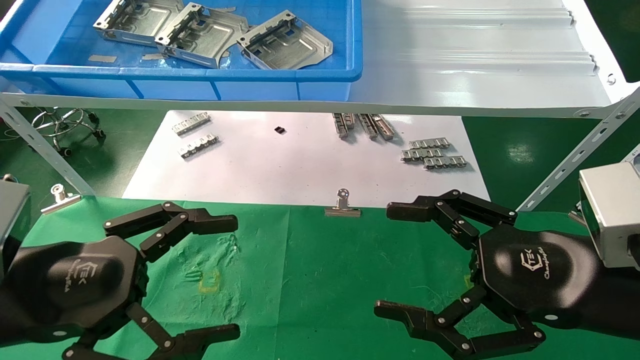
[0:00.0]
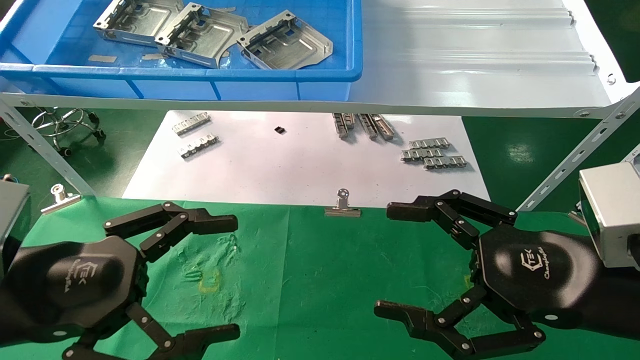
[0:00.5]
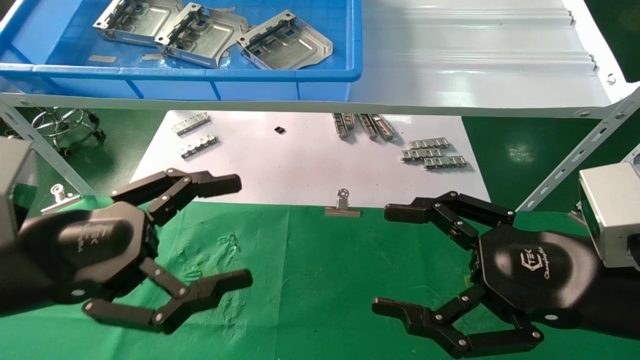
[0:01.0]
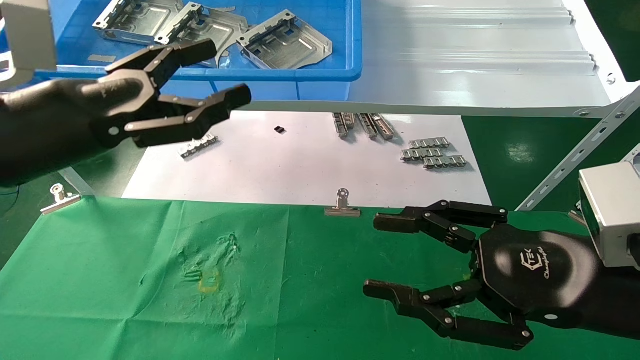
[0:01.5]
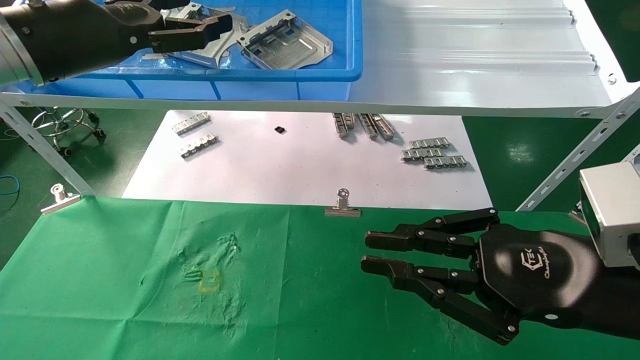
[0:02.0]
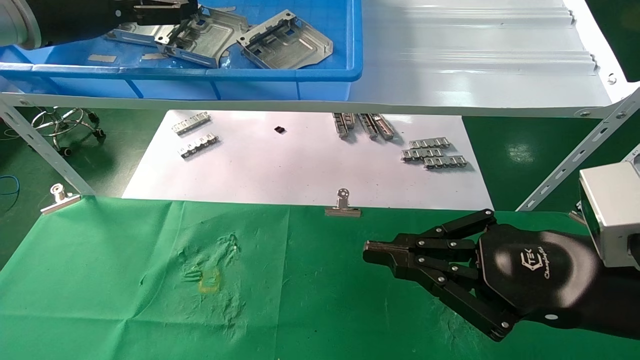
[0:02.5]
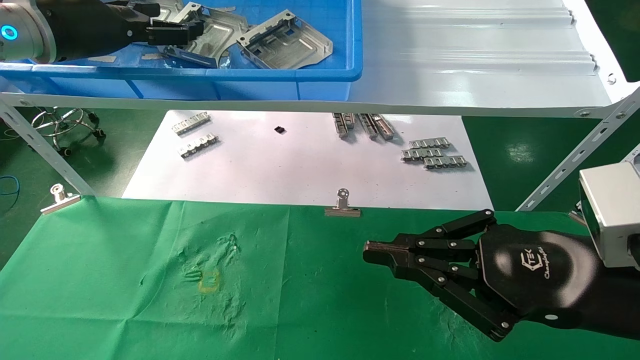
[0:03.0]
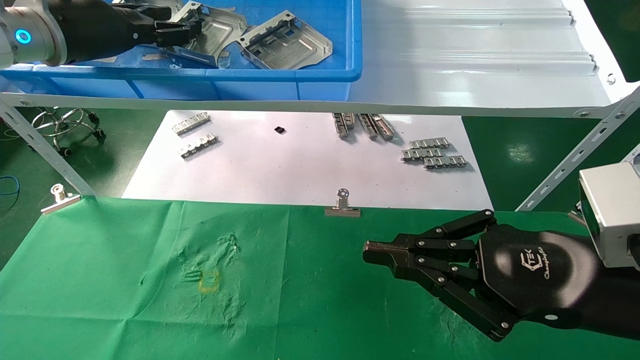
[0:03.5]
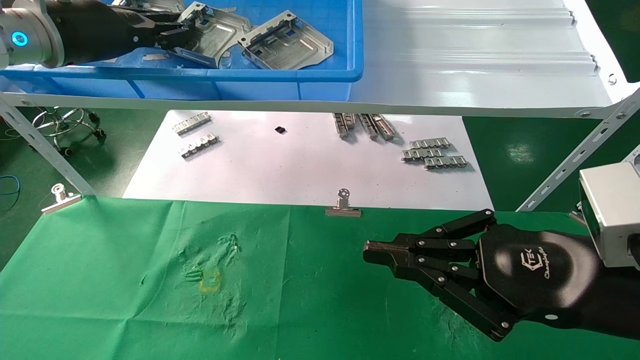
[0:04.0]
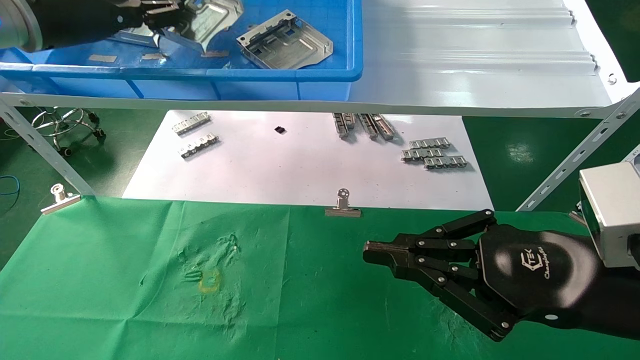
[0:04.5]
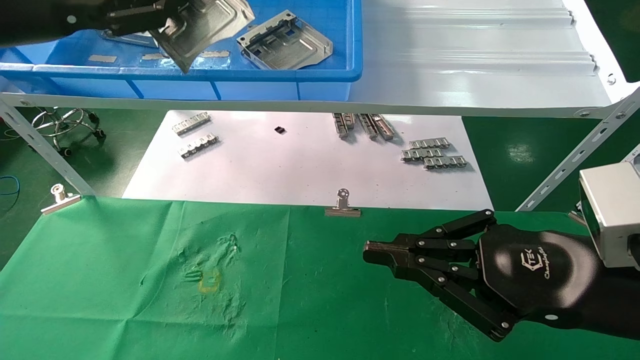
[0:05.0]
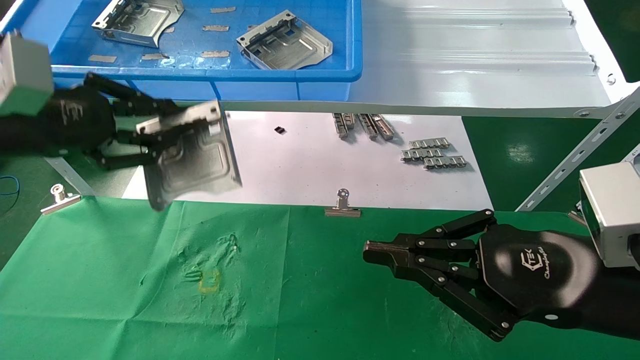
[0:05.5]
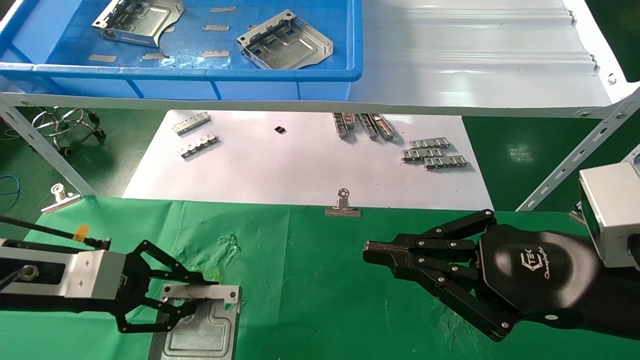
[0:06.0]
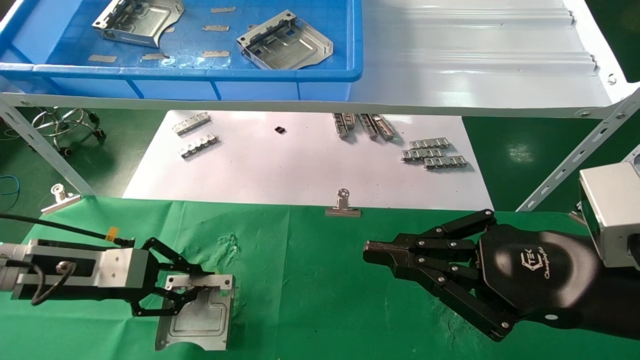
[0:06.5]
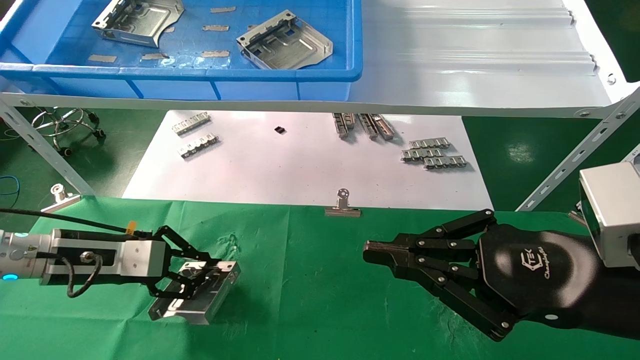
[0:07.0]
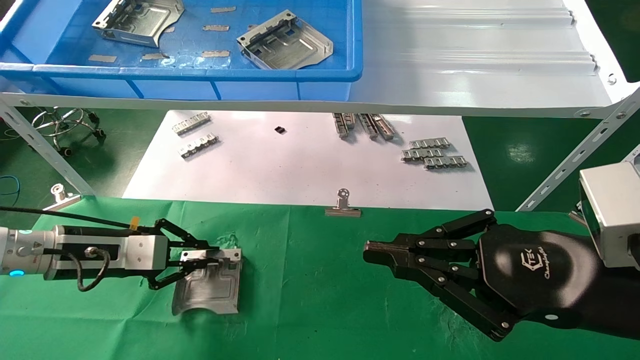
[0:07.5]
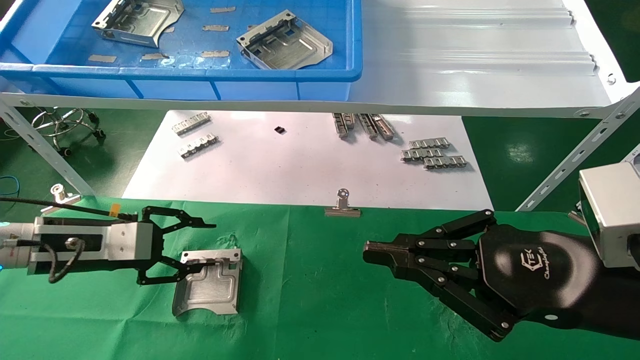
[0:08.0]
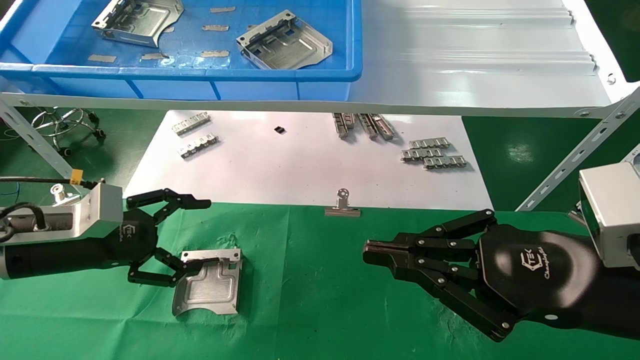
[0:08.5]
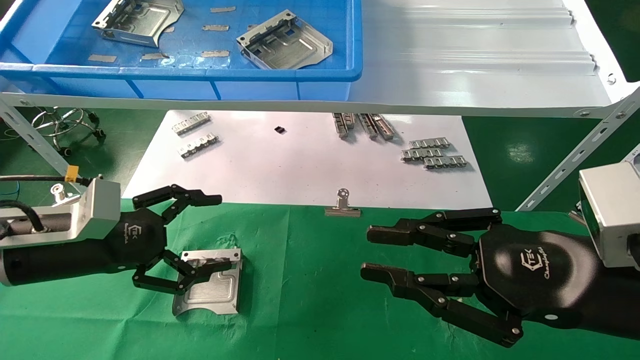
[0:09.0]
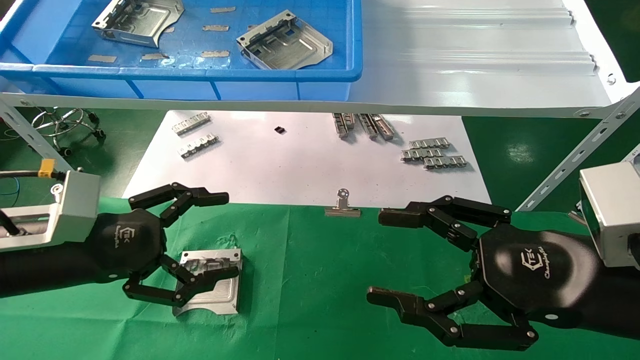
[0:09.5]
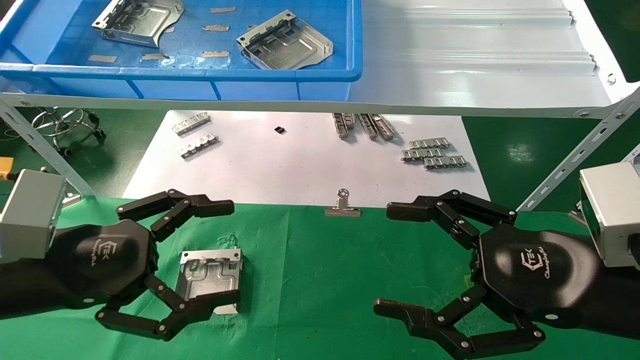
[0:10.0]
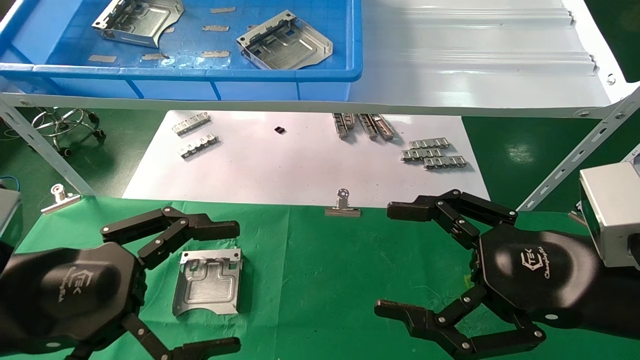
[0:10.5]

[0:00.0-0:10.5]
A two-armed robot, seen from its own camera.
Task of the whole recording: use the mechanical arm to pick up the parts and place them on the table.
Step, 0:01.5 to 0:04.0: Pick up the hard drive bracket from the feeding area.
Step, 0:04.5 to 0:07.5: Place the hard drive bracket into the box.
0:00.0 to 0:02.0: The right gripper closes its fingers; the left gripper is displaced upward and forward by approximately 25 cm.
0:02.0 to 0:04.0: The left gripper shifts approximately 5 cm forward, and closes its fingers.
0:04.0 to 0:06.5: The left gripper heads downward, covering some 25 cm.
0:06.5 to 0:08.5: The left gripper opens up.
0:08.5 to 0:10.5: The left gripper heads backward and to the right, covering roughly 15 cm, while the right gripper opens up.
